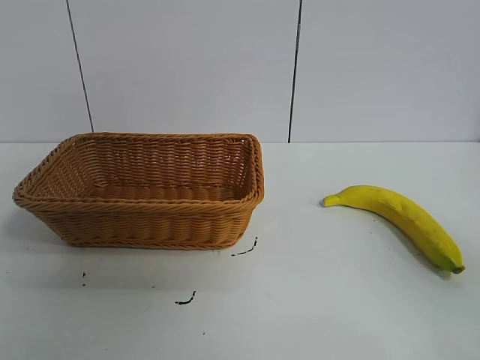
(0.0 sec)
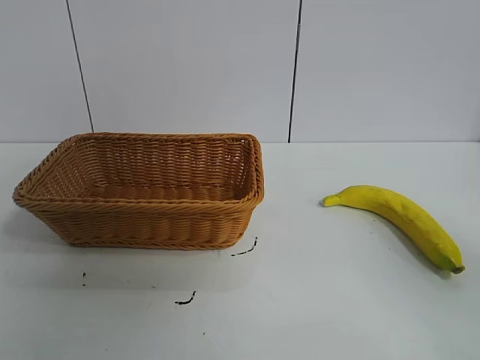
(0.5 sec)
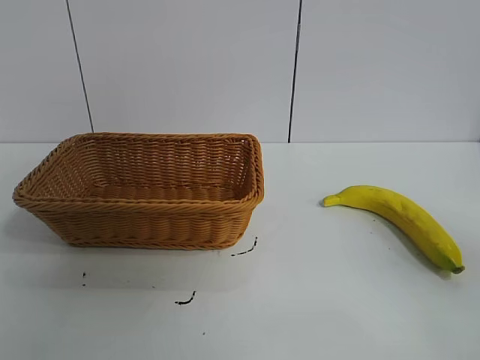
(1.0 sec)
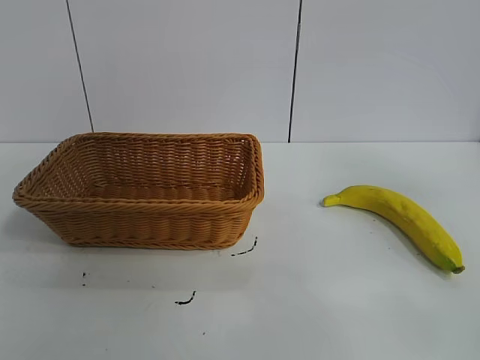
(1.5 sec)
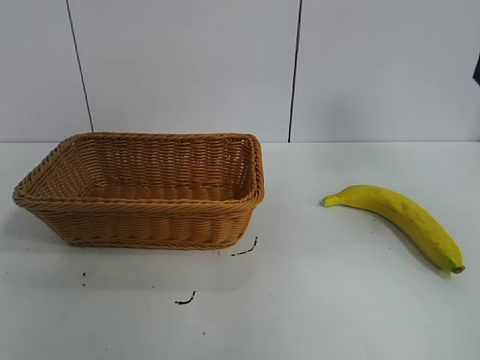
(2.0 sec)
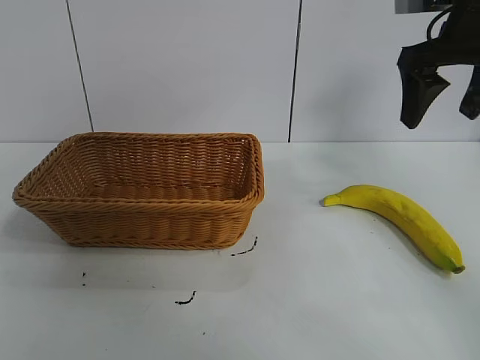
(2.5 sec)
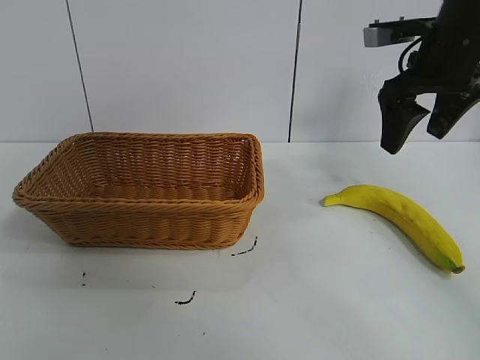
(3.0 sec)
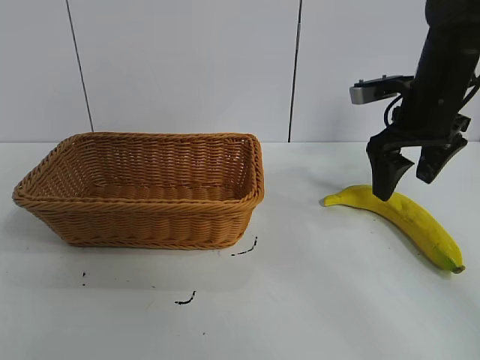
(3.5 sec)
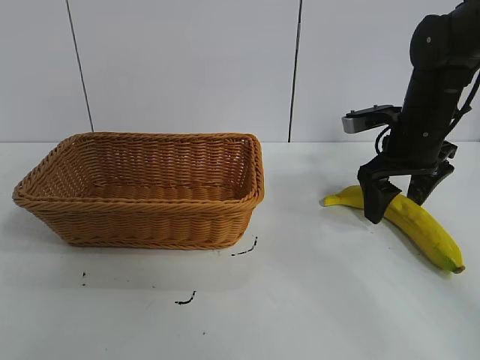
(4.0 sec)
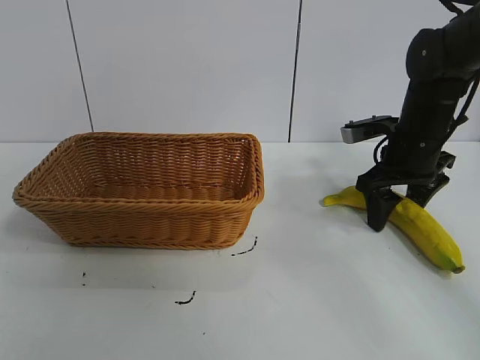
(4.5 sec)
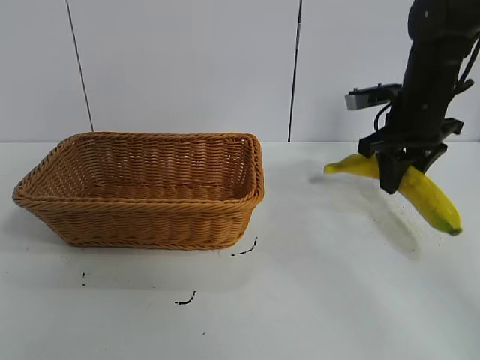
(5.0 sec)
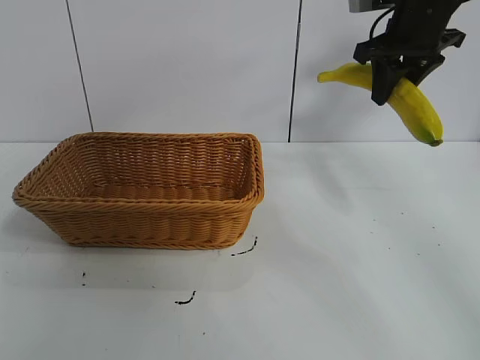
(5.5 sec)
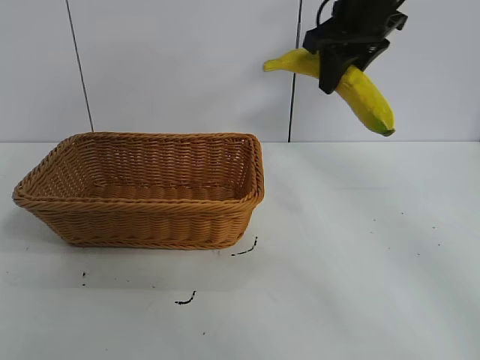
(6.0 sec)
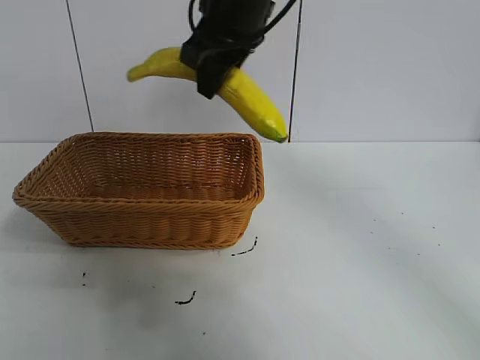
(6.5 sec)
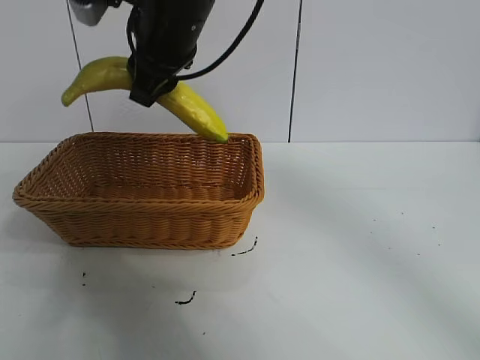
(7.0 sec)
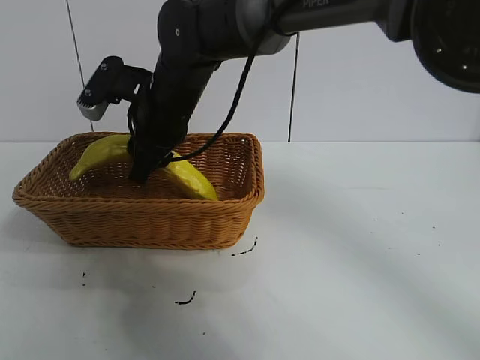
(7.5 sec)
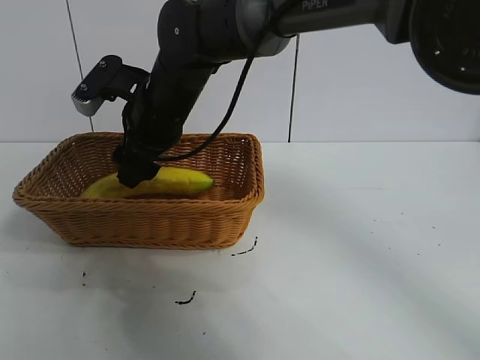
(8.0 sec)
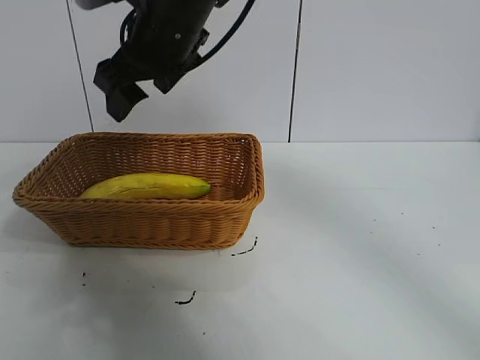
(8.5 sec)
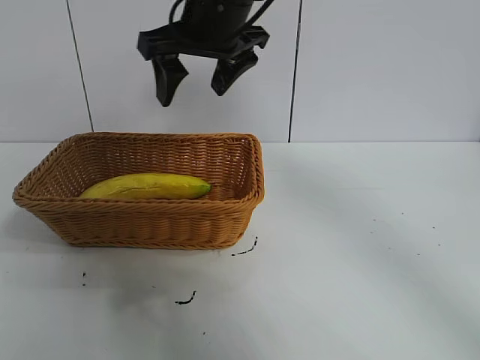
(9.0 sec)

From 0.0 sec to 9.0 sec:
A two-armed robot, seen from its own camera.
Task of the whole recording: pick up the banana and put it into the basket.
Step, from 1.0 sec to 4.5 sec: Grasp the banana with right gripper.
Step, from 5.0 sec to 8.0 sec: Place the banana in the basket with right gripper.
